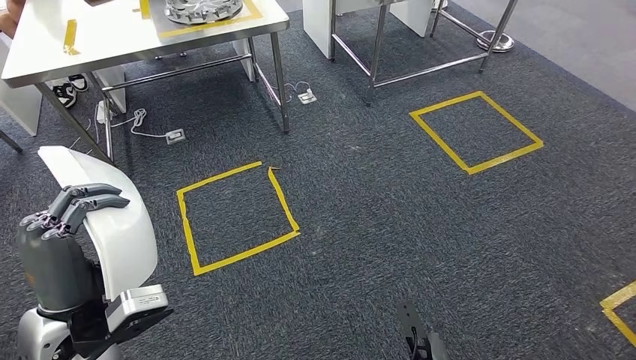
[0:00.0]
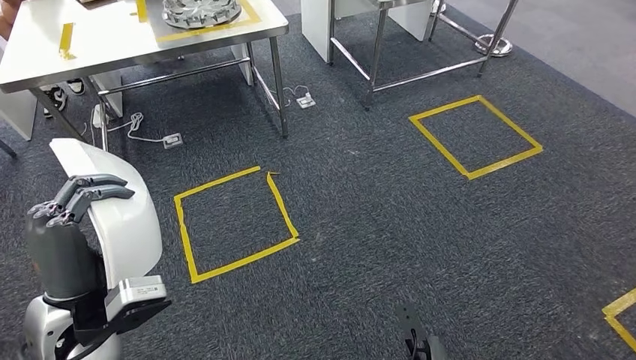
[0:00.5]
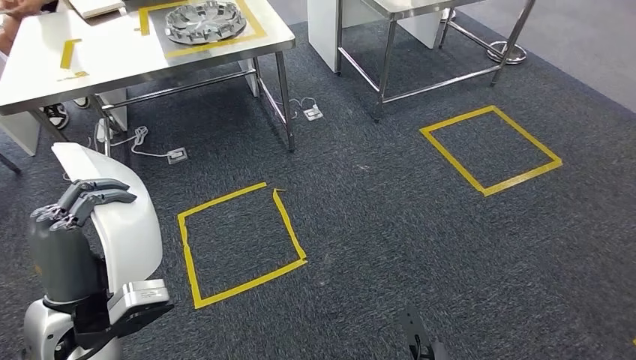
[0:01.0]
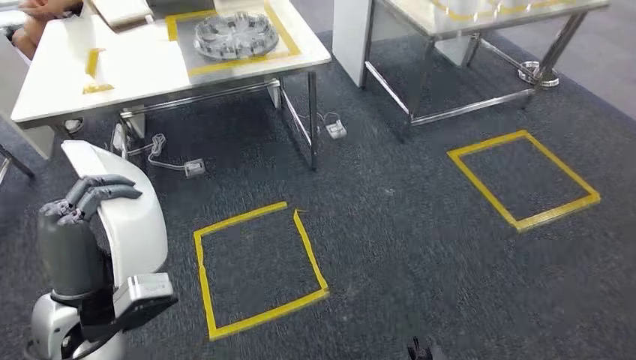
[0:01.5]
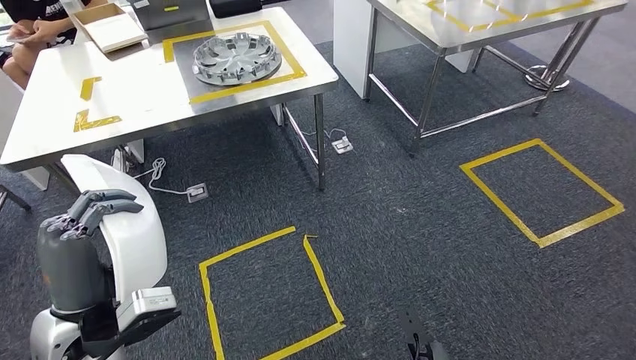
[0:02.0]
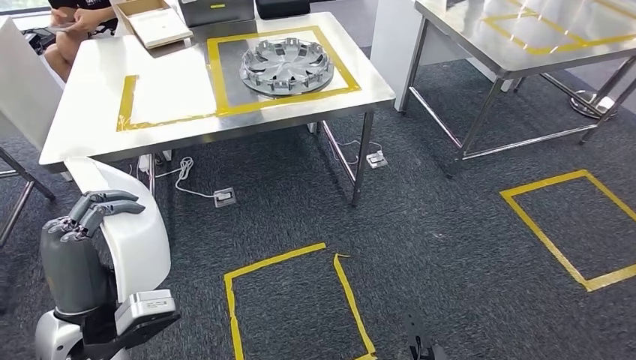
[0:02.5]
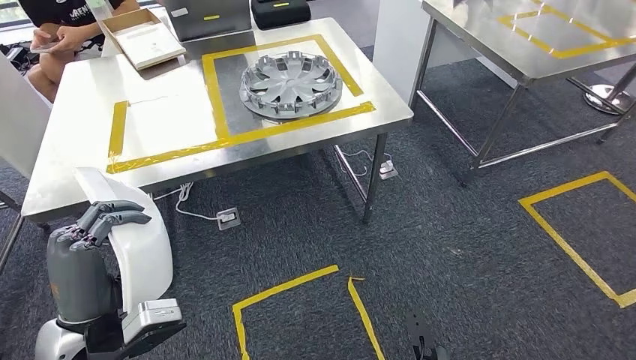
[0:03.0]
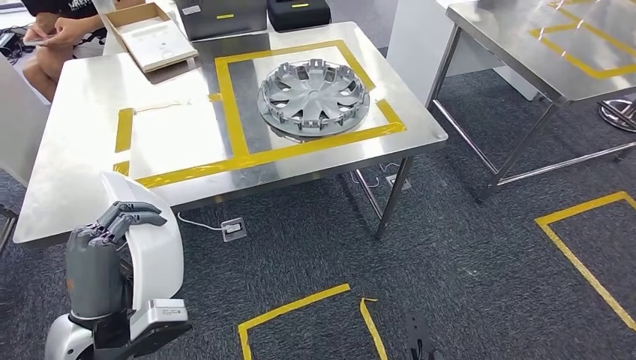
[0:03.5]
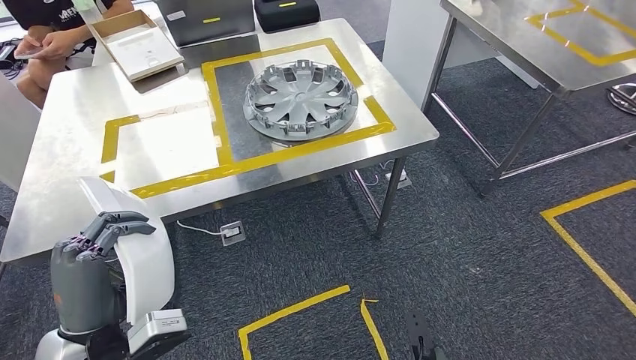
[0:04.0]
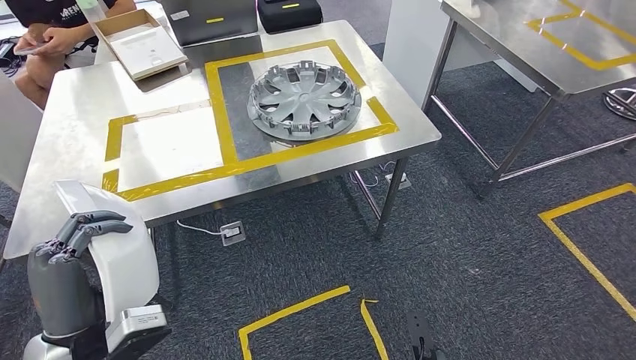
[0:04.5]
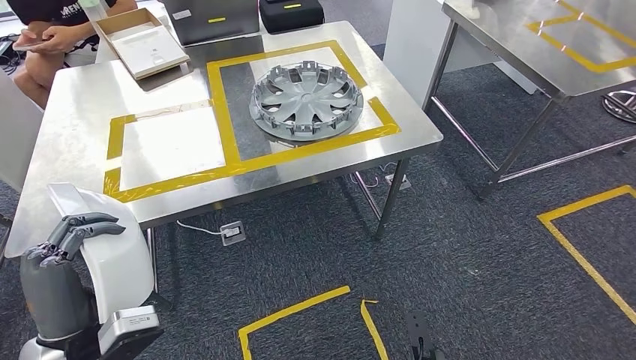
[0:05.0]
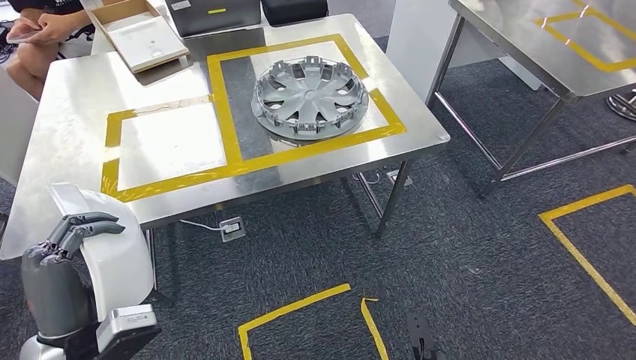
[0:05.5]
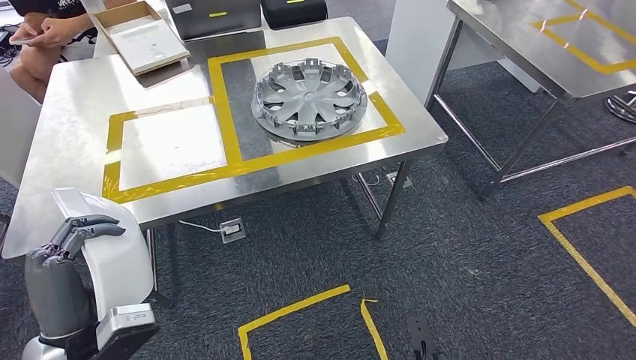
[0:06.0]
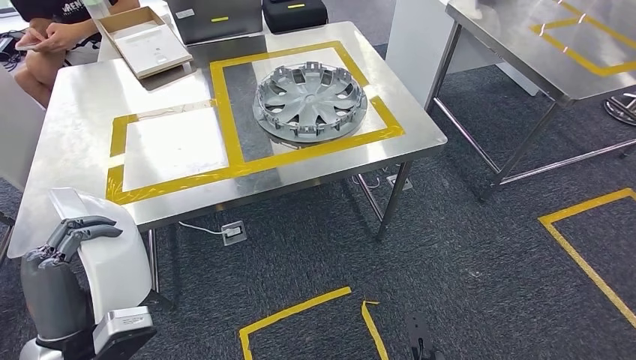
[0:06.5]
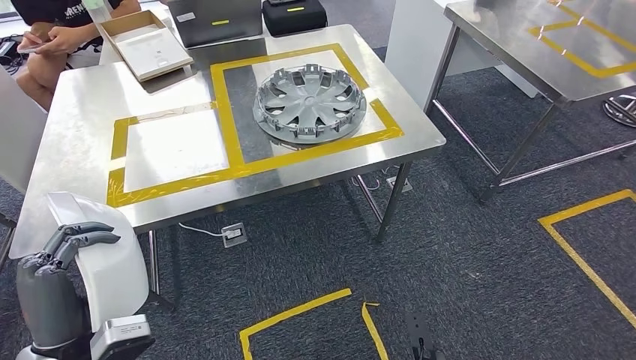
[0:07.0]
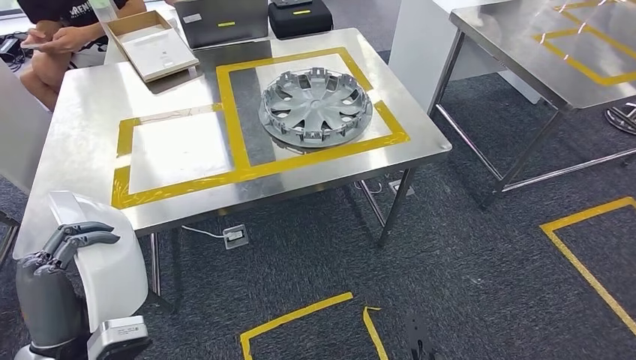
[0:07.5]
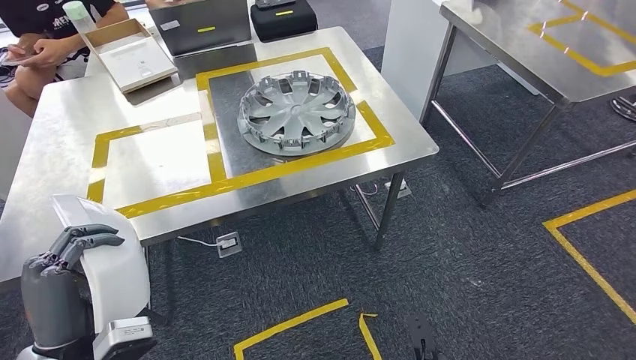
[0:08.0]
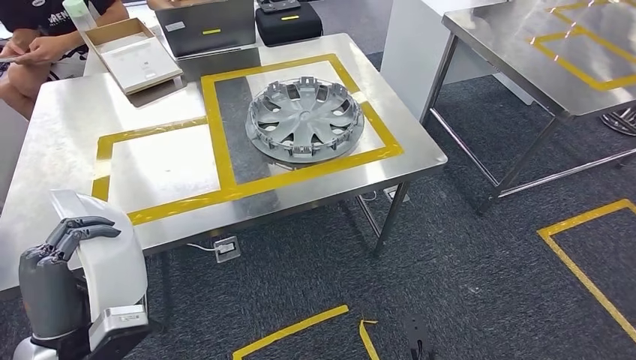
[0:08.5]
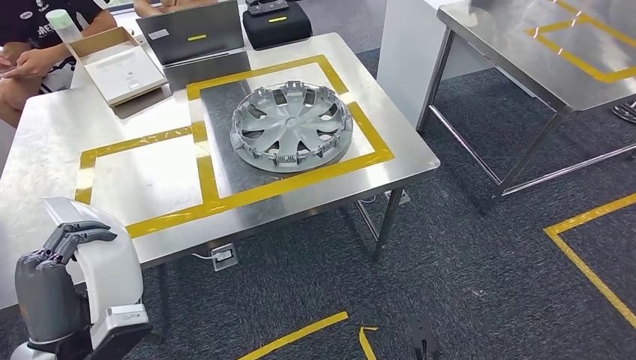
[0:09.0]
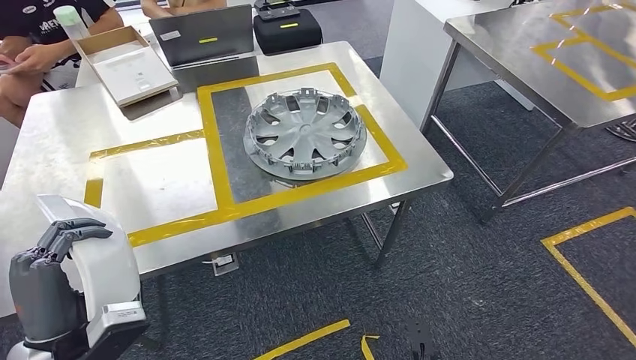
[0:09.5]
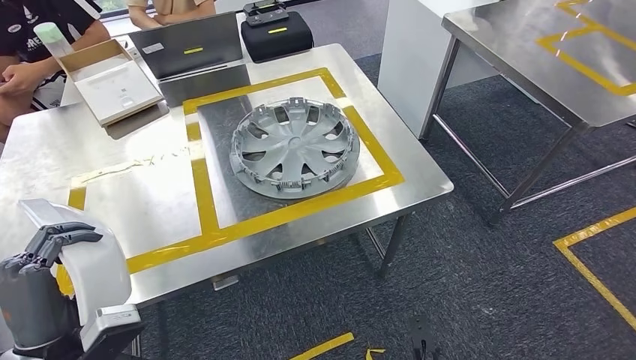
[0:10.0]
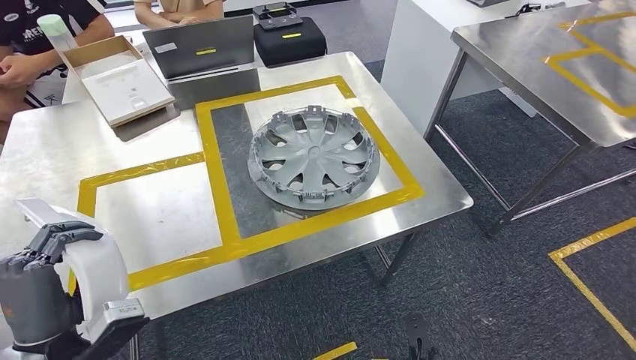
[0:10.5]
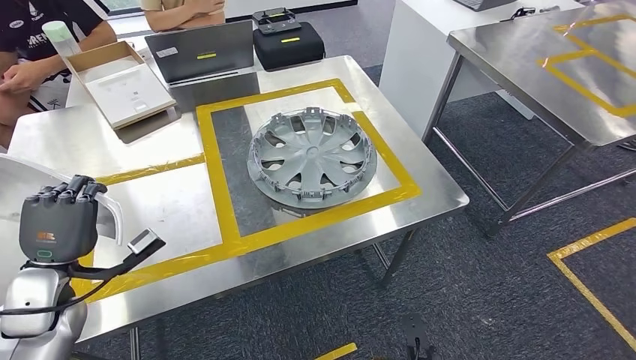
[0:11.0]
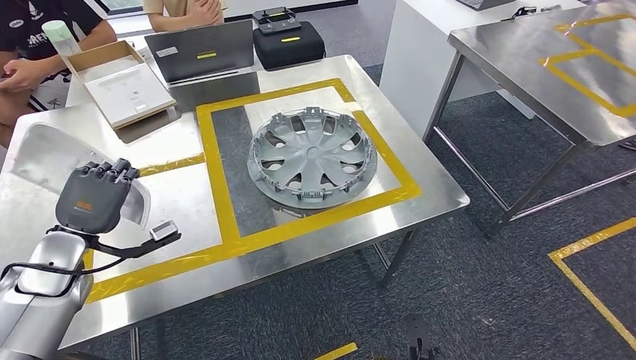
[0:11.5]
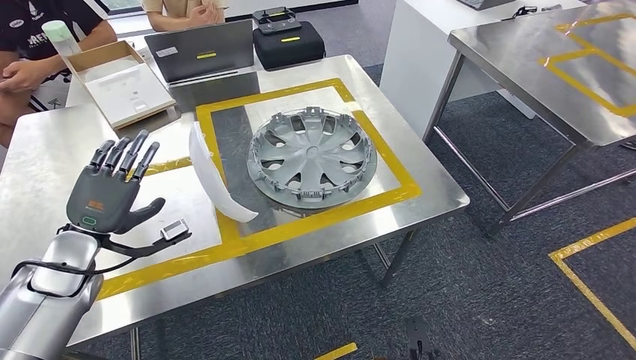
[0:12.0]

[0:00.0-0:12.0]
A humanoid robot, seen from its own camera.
Step, 0:00.0 to 0:09.5: Move the small parts to the workbench.

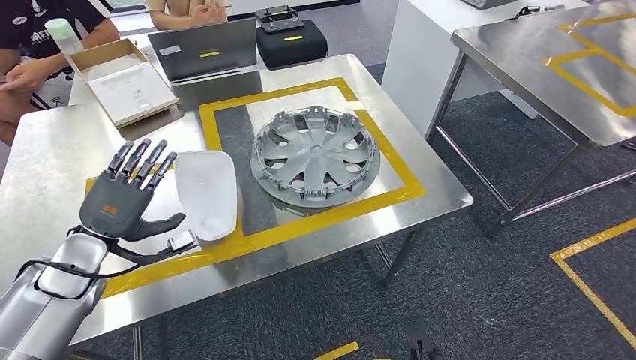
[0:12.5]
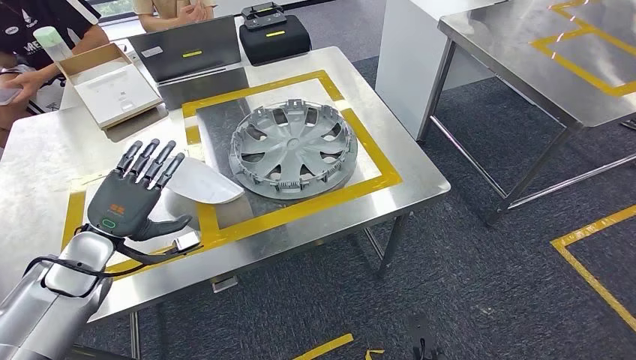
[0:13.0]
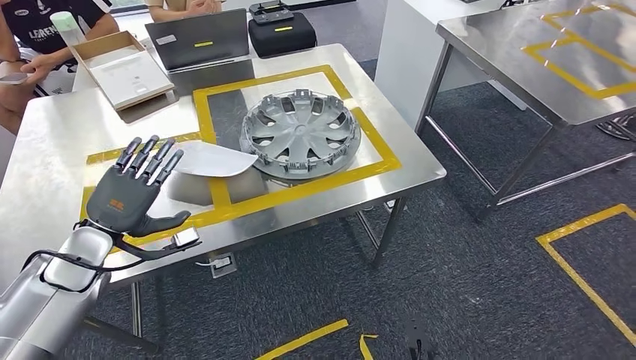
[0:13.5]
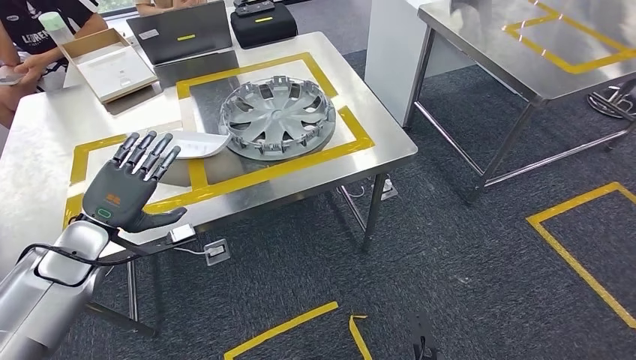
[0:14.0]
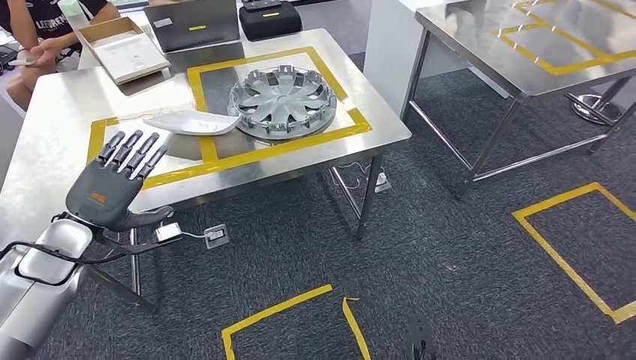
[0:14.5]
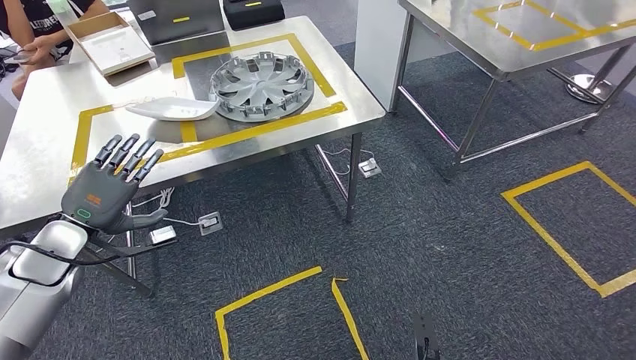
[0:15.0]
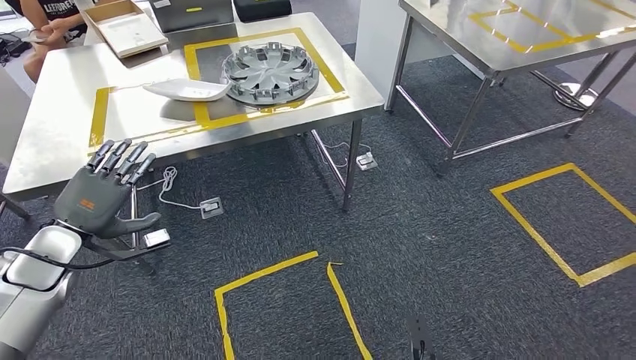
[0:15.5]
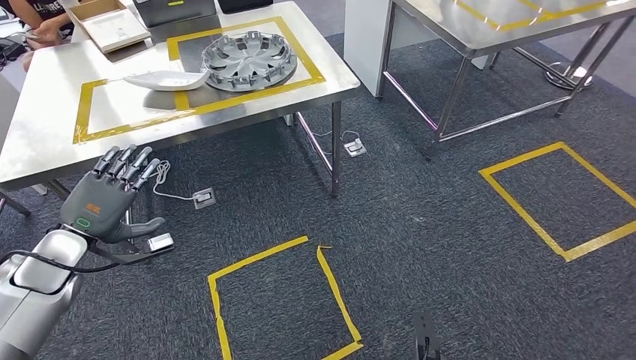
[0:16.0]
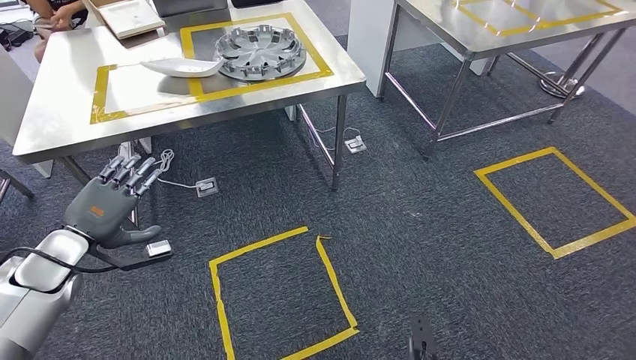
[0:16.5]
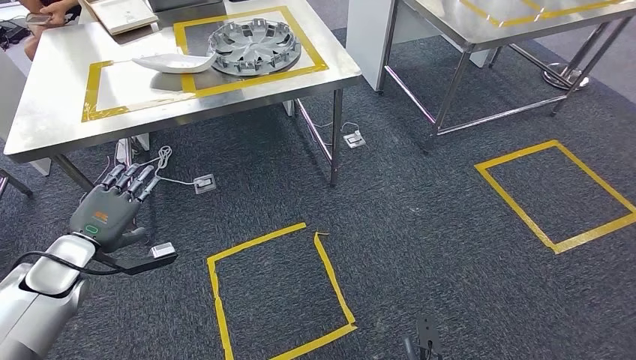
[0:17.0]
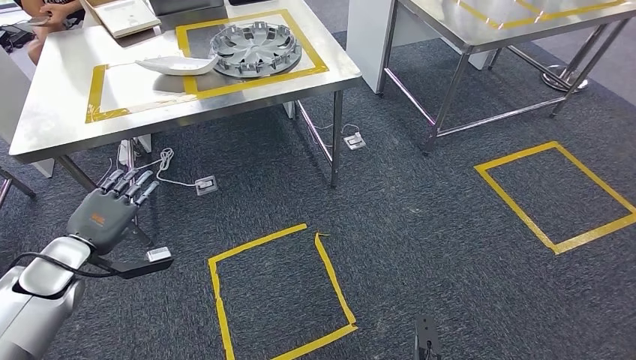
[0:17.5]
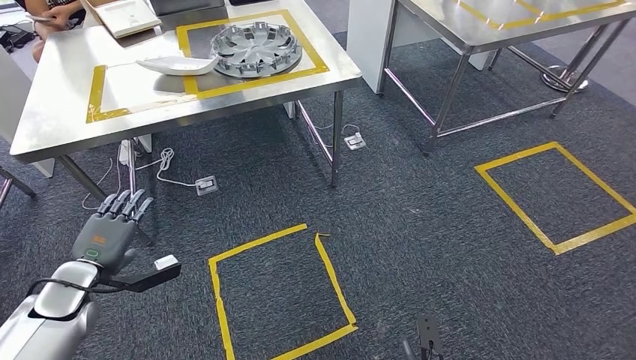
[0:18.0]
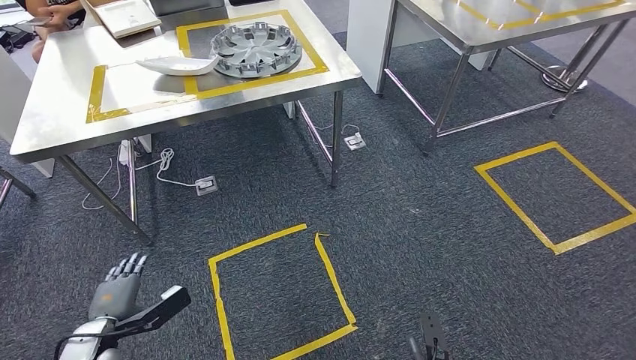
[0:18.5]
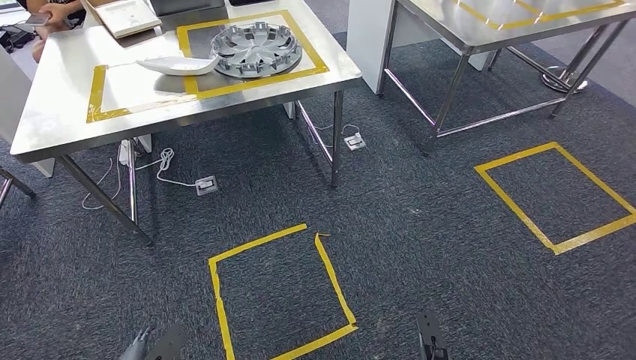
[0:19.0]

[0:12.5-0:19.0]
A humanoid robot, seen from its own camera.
Step, 0:13.5 to 0:19.0: Move to the initial position of the workbench.
0:17.0 to 0:19.0: The left hand travels downward and backward by about 30 cm. Meanwhile the right hand shifts by about 5 cm.
